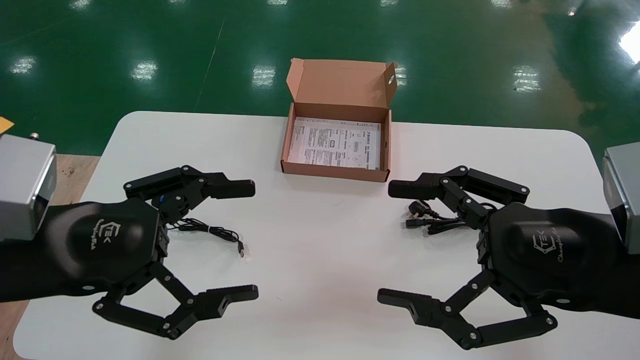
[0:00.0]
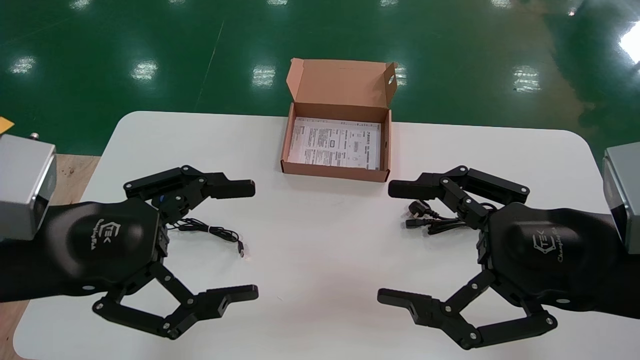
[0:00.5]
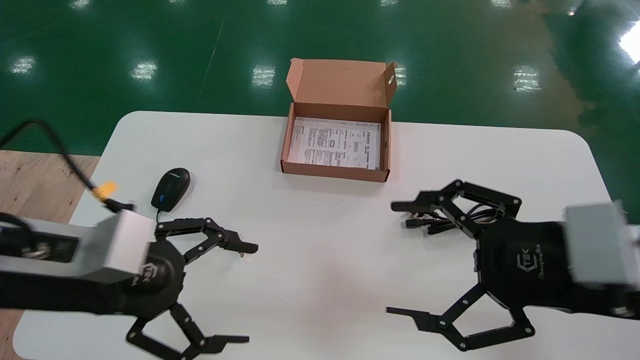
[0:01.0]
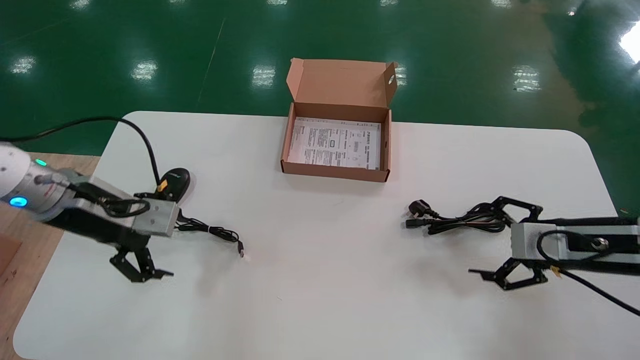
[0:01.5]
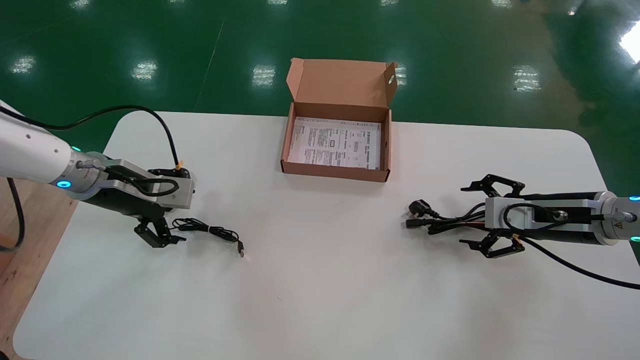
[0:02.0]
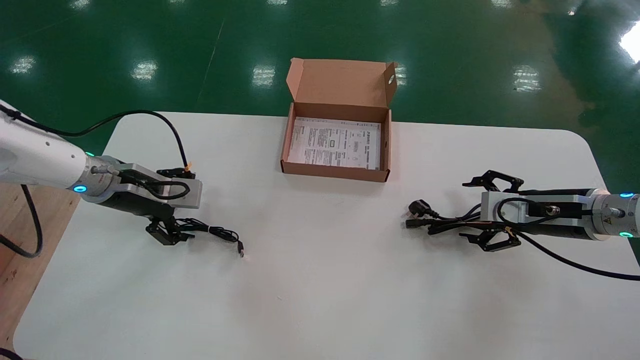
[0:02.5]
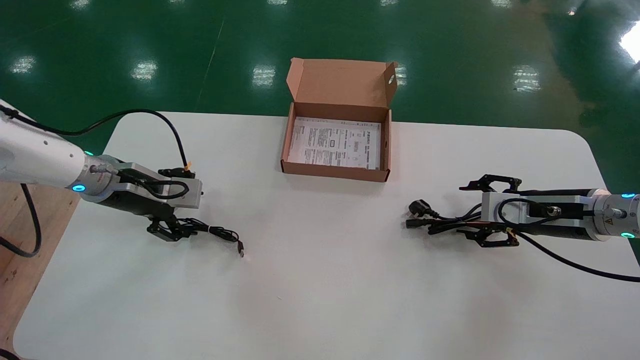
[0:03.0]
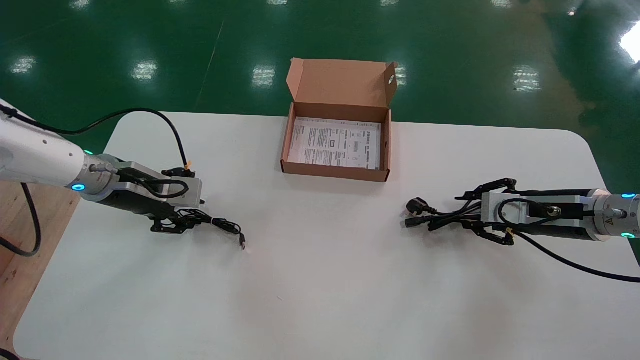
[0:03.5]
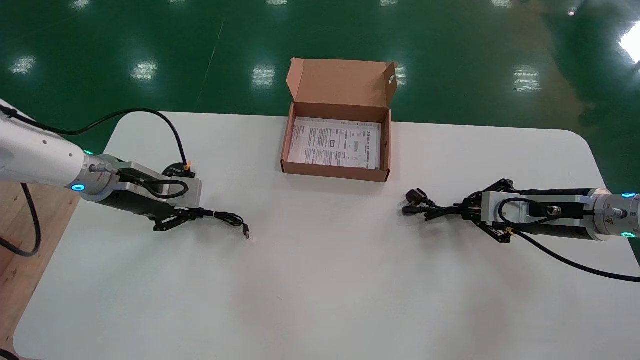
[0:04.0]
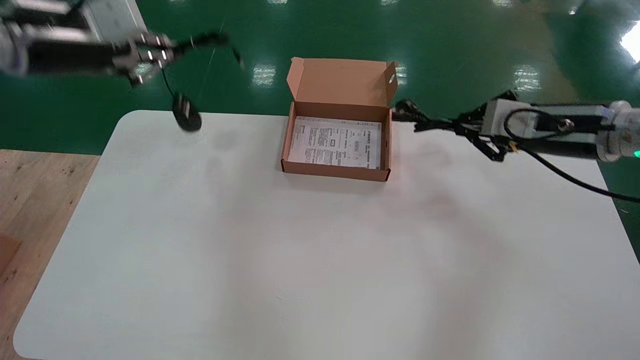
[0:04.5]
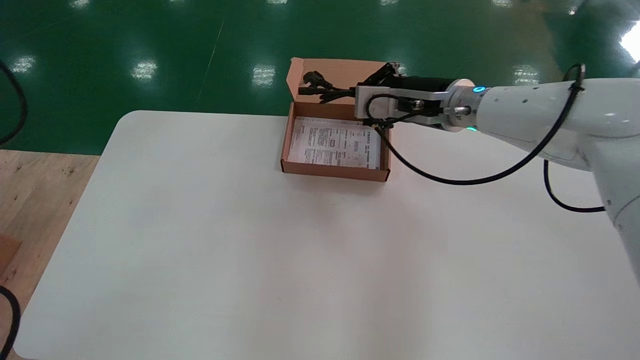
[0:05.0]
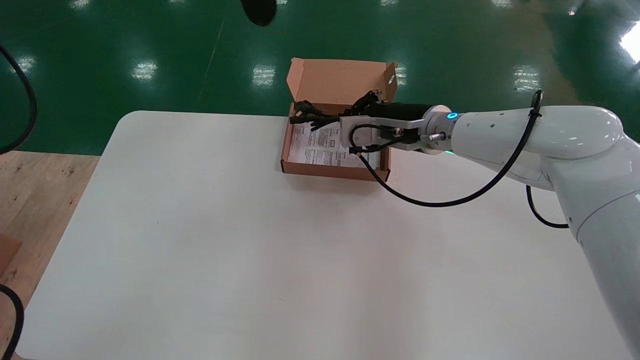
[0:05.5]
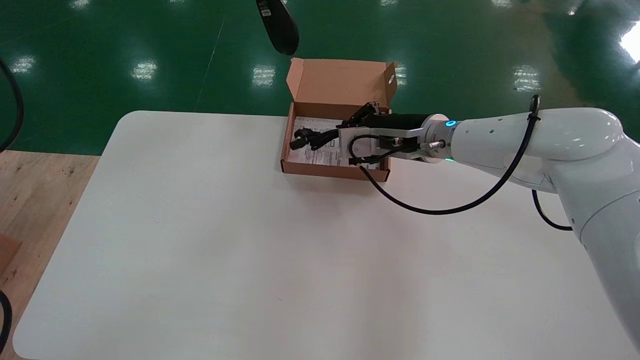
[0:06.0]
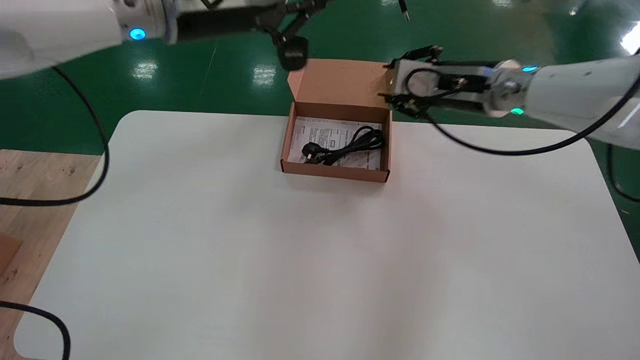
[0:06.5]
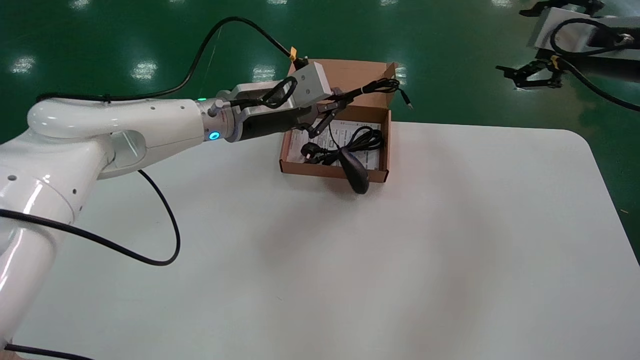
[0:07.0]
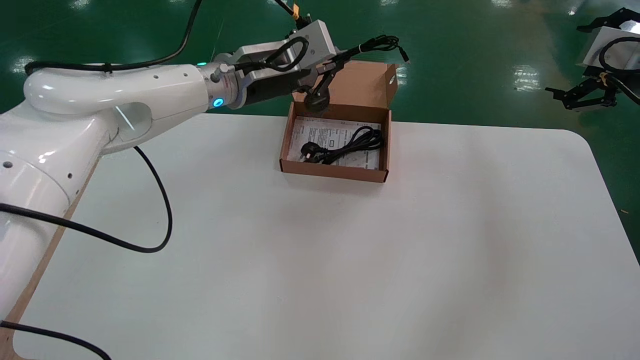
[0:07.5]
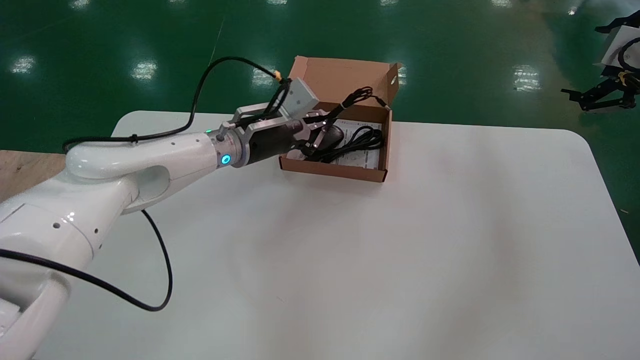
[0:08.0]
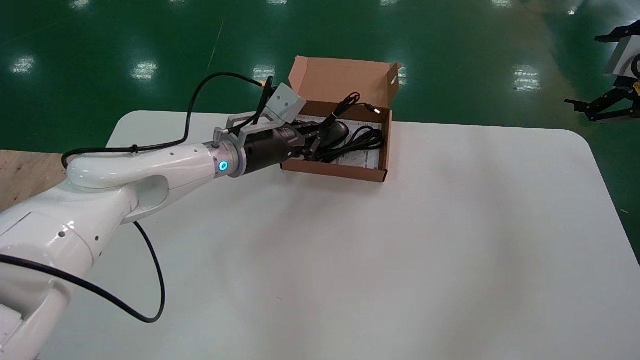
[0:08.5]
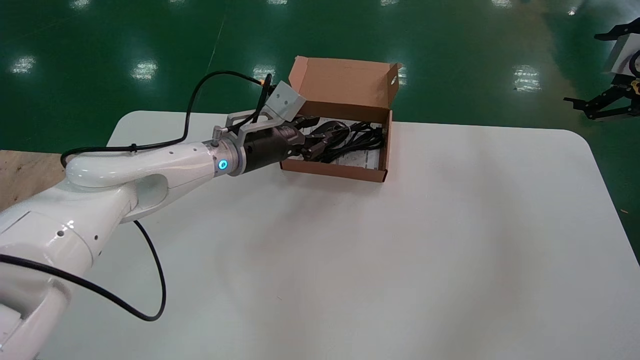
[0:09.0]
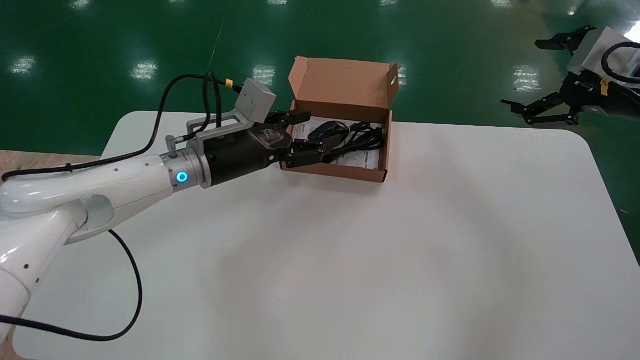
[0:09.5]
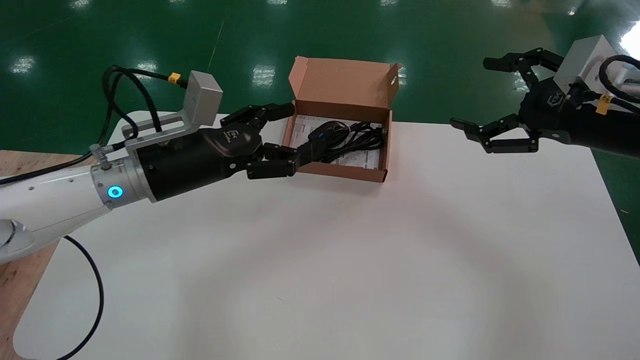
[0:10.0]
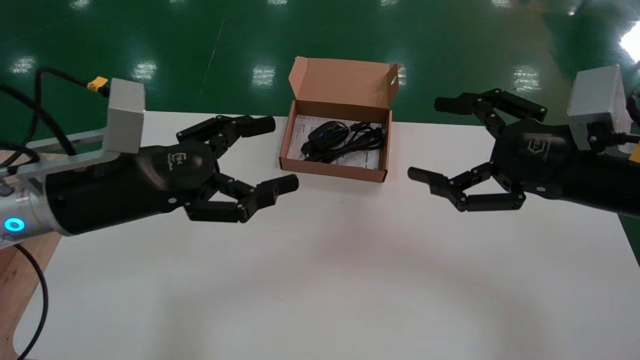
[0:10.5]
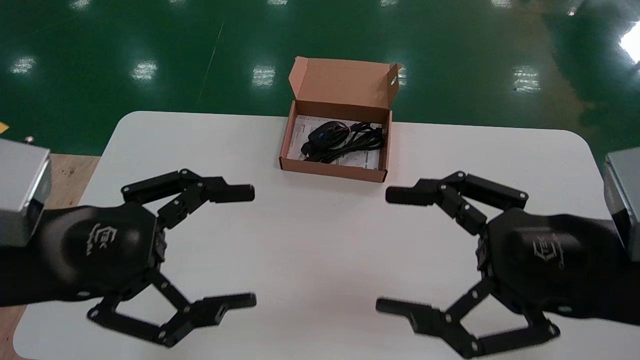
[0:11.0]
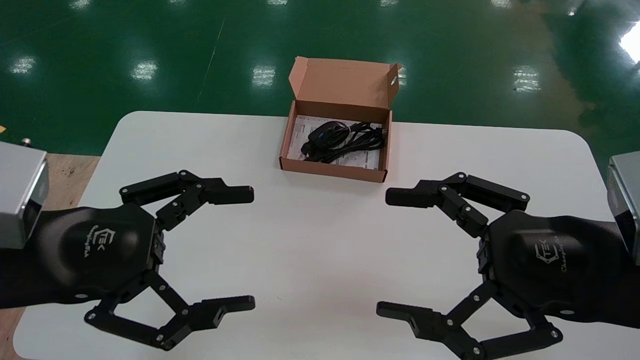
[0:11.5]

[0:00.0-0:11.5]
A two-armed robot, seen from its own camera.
Step, 0:01.5 to 0:04.0: Simultaneously pick up the mouse and power cord from the accessory packaging area.
Step, 0:04.5 to 0:09.0: Place the mouse and power cord into the box.
0:00.0 to 0:02.0: The right gripper moves forward and to the right, roughly 25 cm. Meanwhile the left gripper moves forward, some 20 cm.
0:02.0 to 0:04.0: The right gripper closes; the left gripper closes.
0:04.0 to 0:06.0: The left gripper goes some 30 cm upward, while the right gripper moves to the left, roughly 20 cm.
0:06.0 to 0:07.5: The left gripper moves downward, forward and to the right, about 25 cm. The right gripper goes approximately 30 cm to the right, and opens.
0:07.5 to 0:09.5: The left gripper moves downward and to the left, about 10 cm, and opens.
0:09.5 to 0:11.5: The left gripper moves backward and to the left, some 25 cm. The right gripper shifts roughly 25 cm backward, to the left and downward.

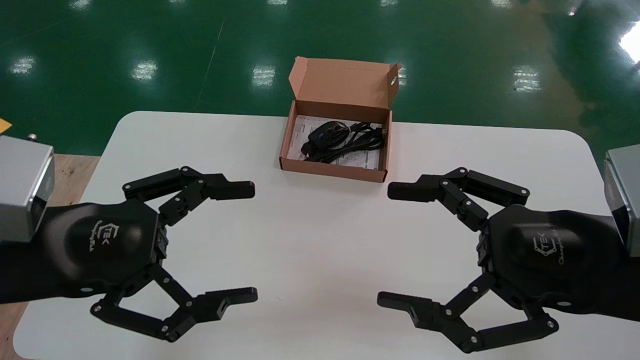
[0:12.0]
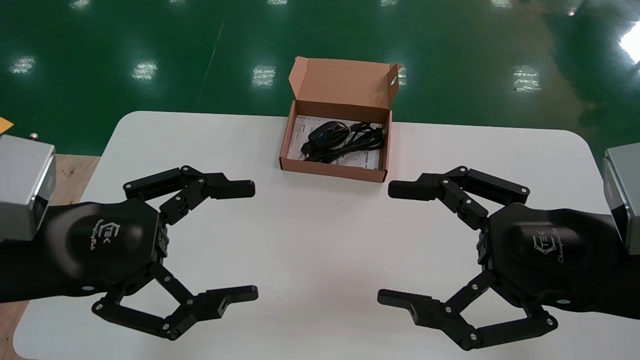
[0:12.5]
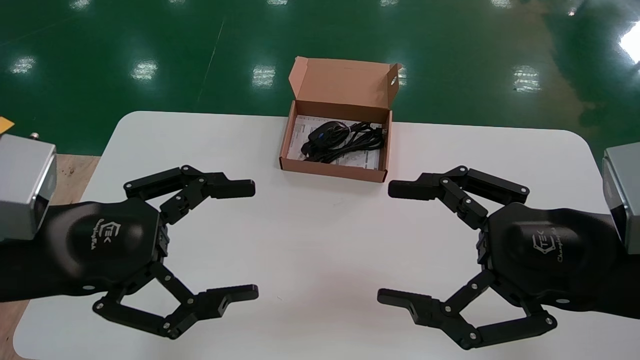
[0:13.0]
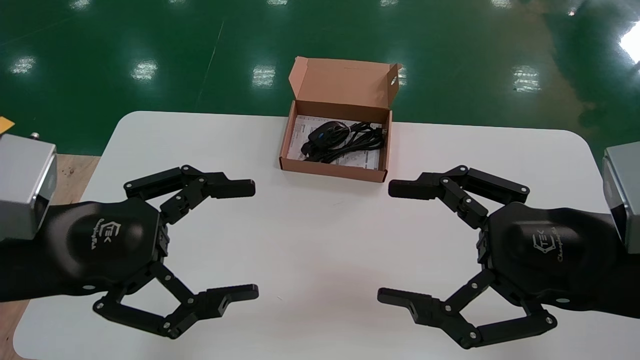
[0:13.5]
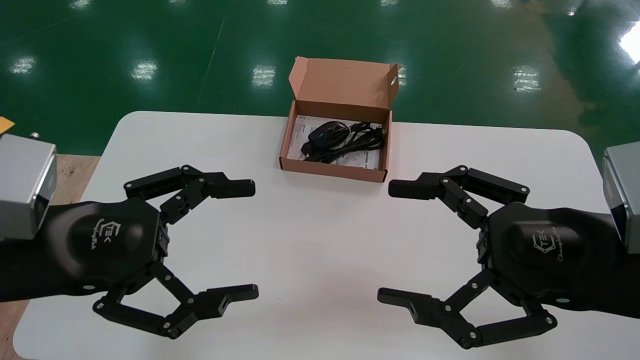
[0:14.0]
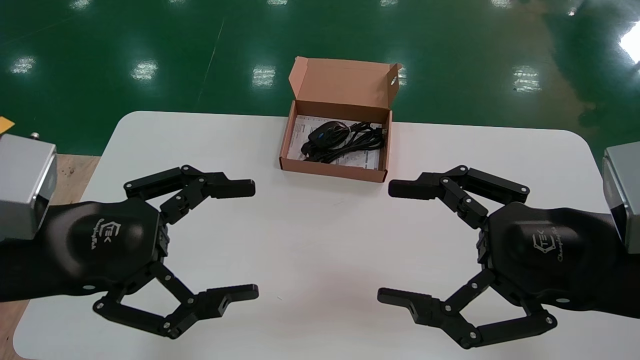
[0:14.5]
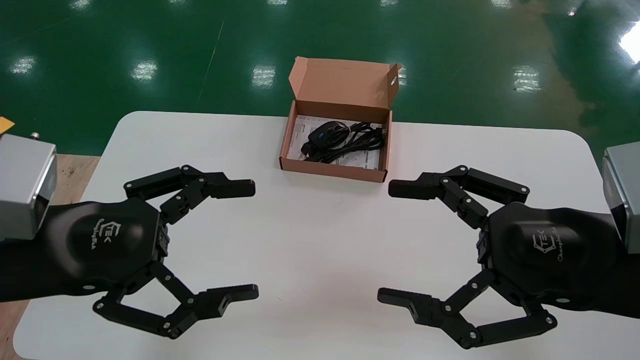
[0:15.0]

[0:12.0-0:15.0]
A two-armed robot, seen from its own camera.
0:12.0 to 0:15.0: Both grippers stay about where they are.
